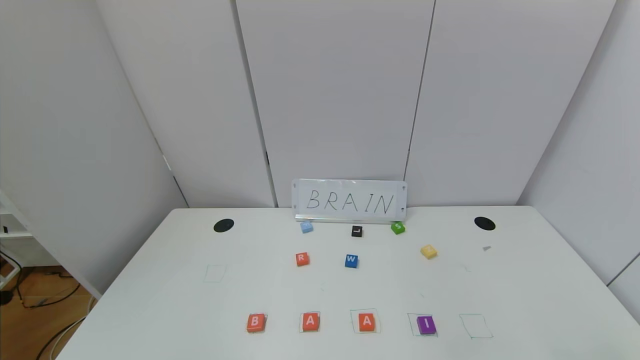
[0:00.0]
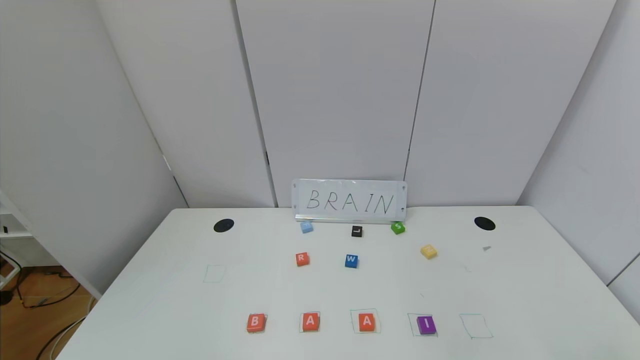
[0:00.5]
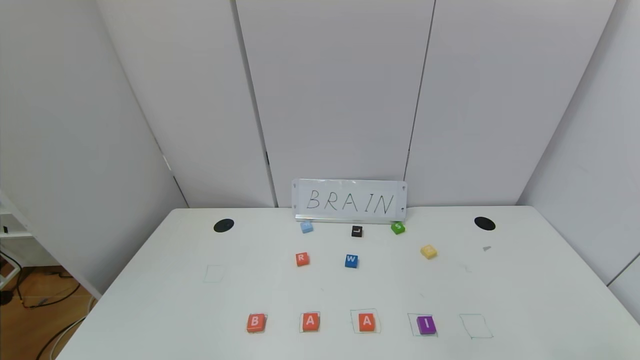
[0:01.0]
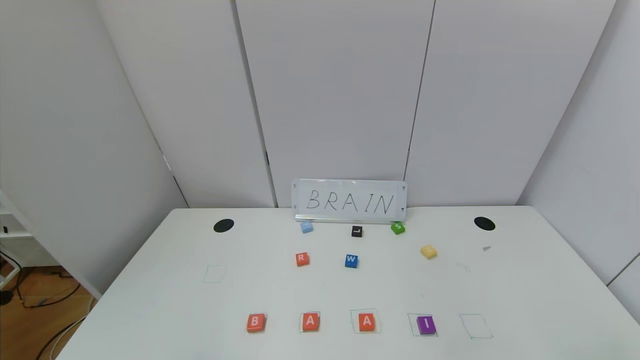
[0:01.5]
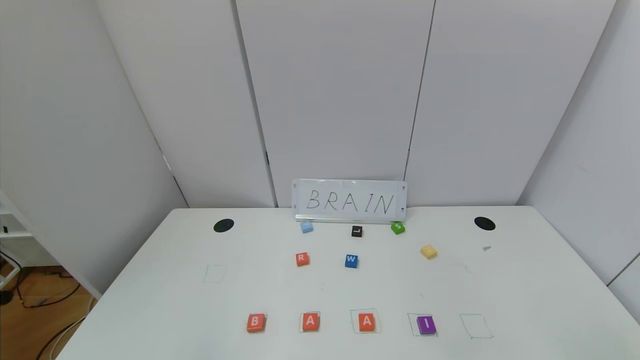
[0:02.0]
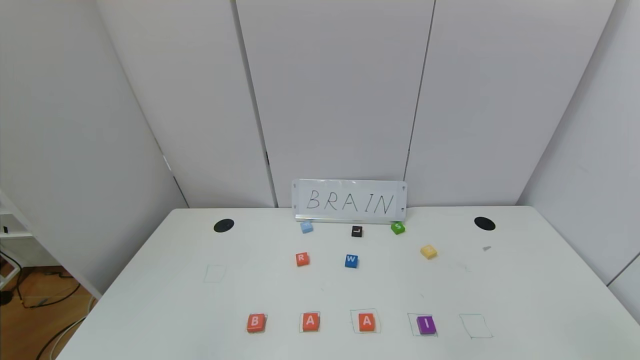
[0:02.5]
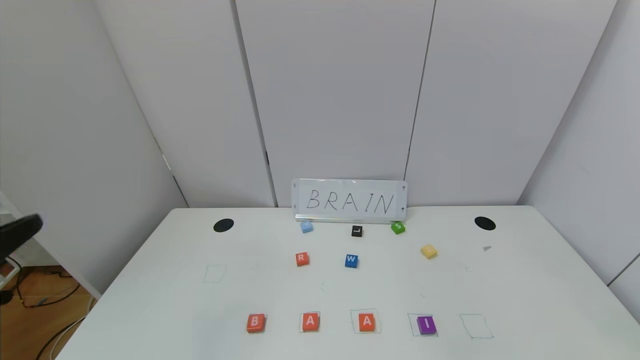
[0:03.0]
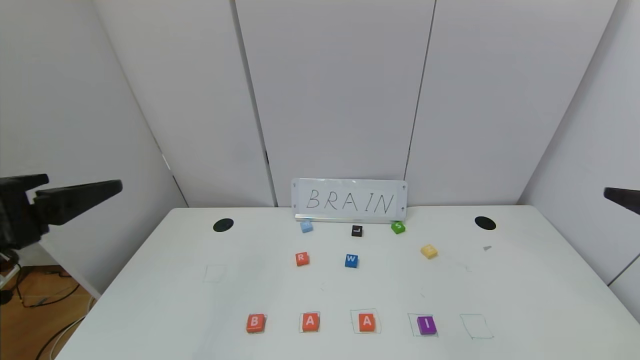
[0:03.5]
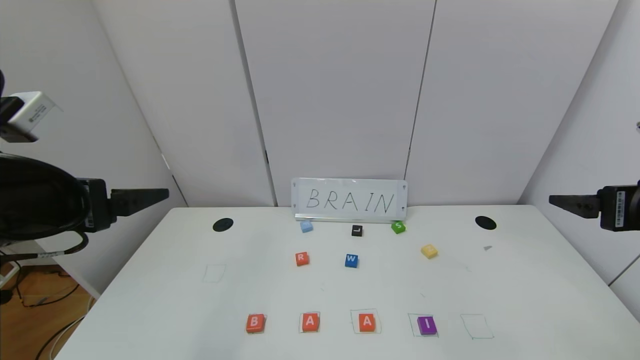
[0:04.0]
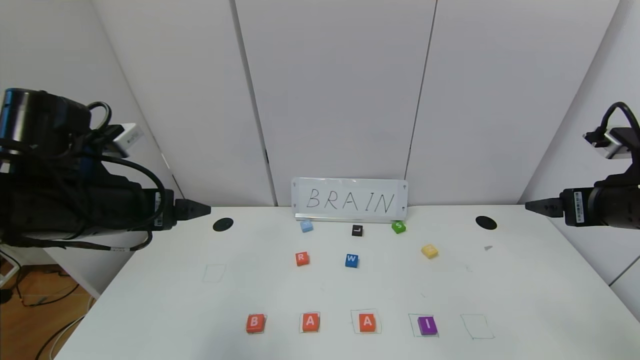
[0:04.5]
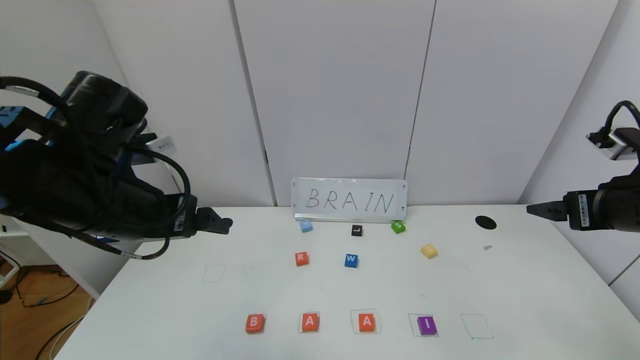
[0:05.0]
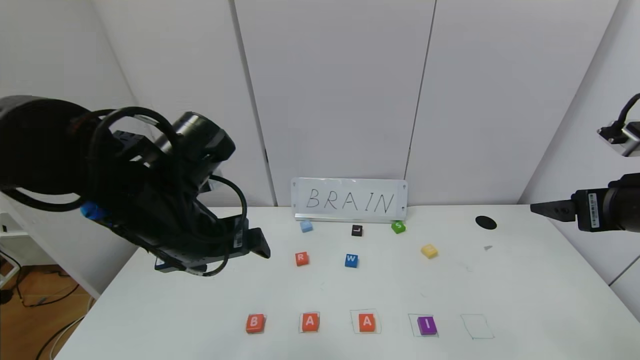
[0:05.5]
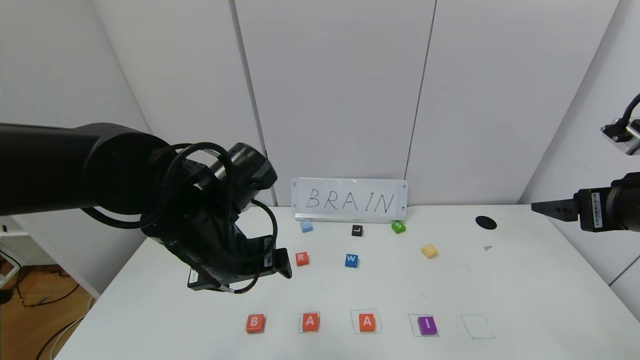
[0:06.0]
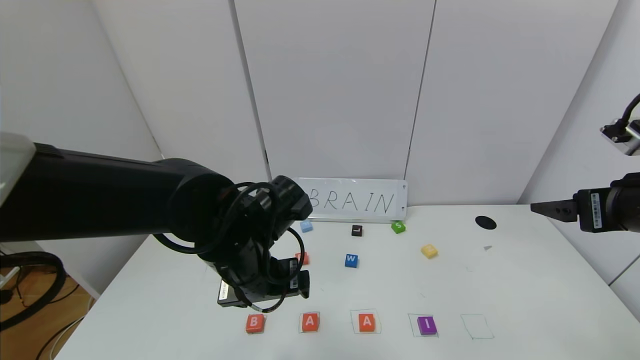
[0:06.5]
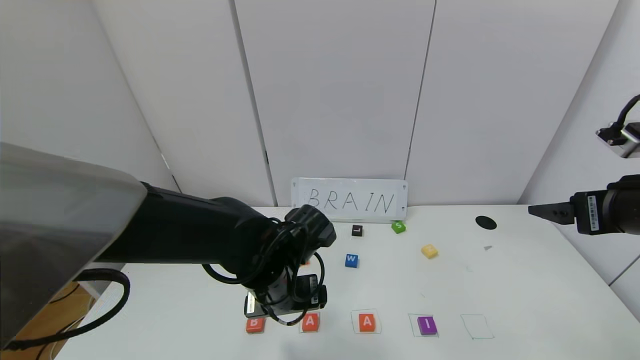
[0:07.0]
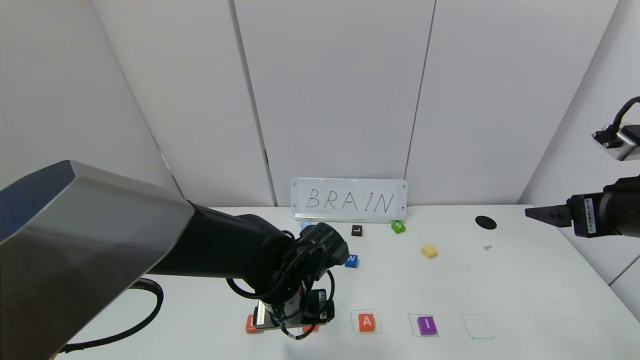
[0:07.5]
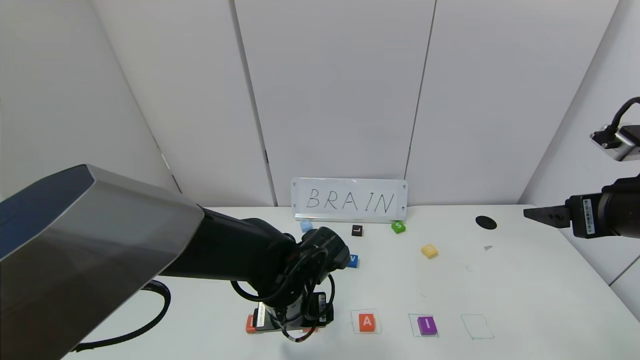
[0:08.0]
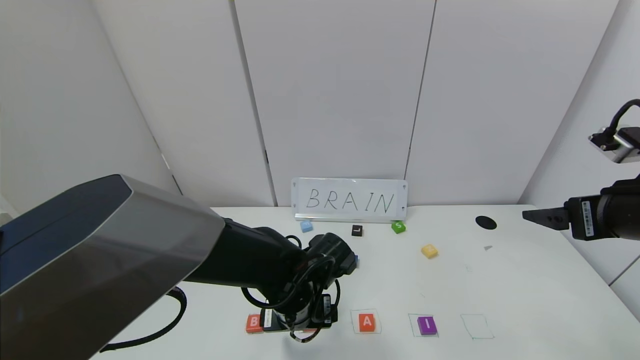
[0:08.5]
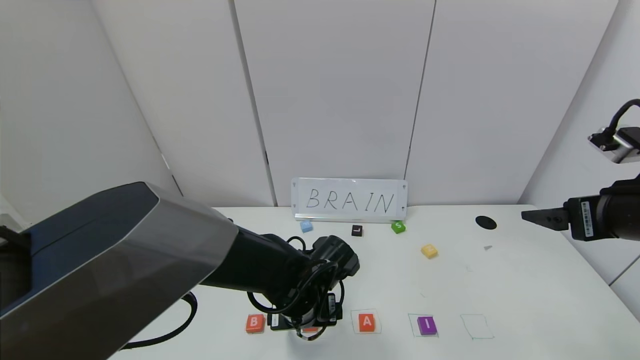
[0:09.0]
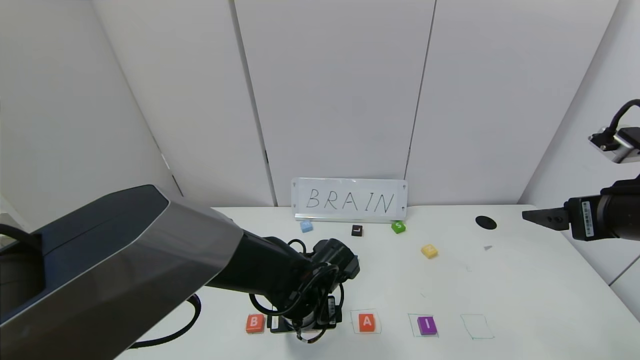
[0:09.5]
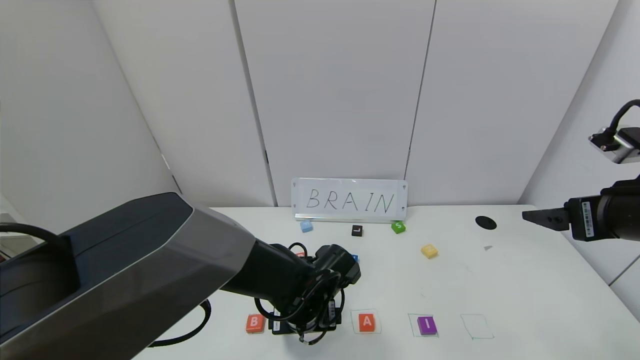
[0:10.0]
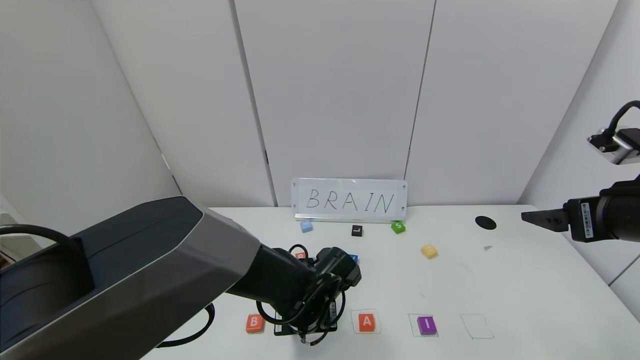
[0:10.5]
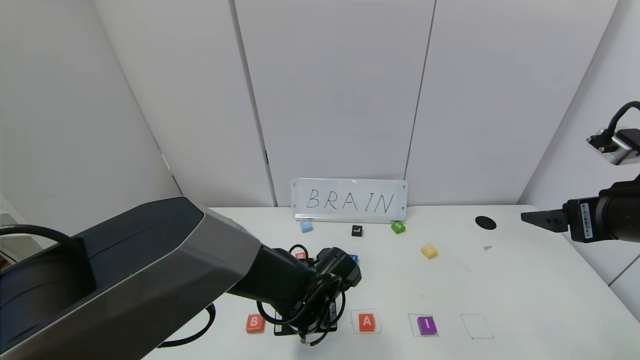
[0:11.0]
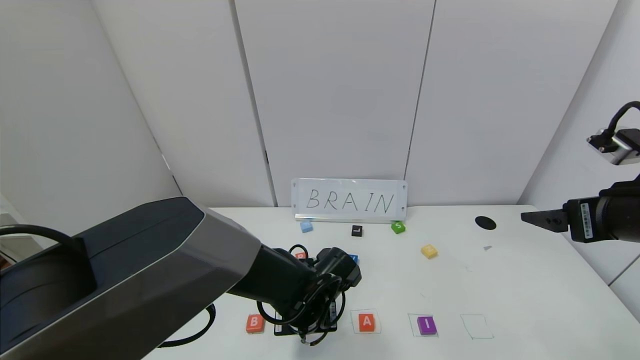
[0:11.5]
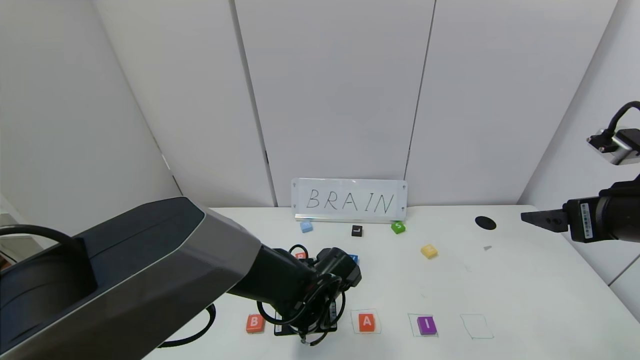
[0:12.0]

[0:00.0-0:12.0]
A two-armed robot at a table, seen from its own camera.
Task of the whole recording: use the gripper to find blocks with the letters b, a, a, and i on the table and arrange them into BAAI, then find r and N and turn the arranged baai into brian.
0:02.0 to 0:04.0: Both grippers move forward and upward, approximately 25 cm.
0:04.0 to 0:06.0: The left gripper heads to the right, downward and forward, covering about 15 cm.
0:06.0 to 0:08.0: The left gripper is displaced downward and to the right by roughly 15 cm.
0:08.0 to 0:10.0: The left gripper changes place by about 5 cm.
0:10.0 to 0:12.0: The left gripper closes up.

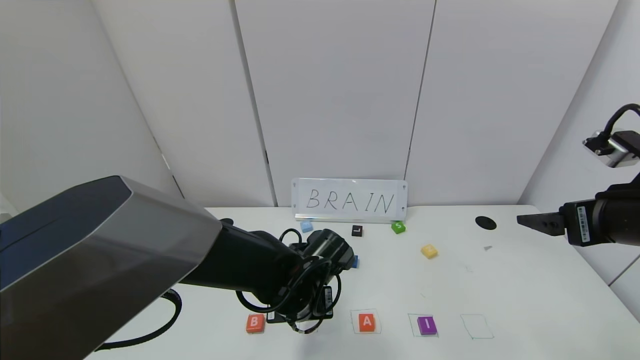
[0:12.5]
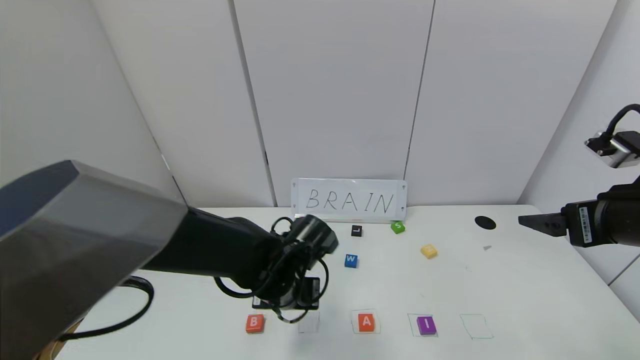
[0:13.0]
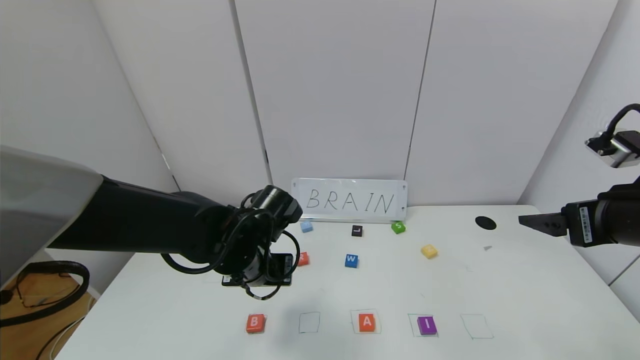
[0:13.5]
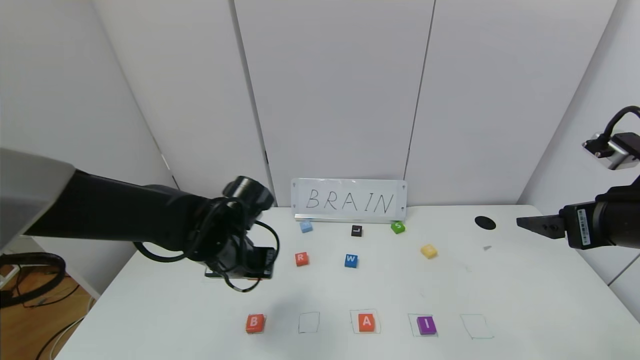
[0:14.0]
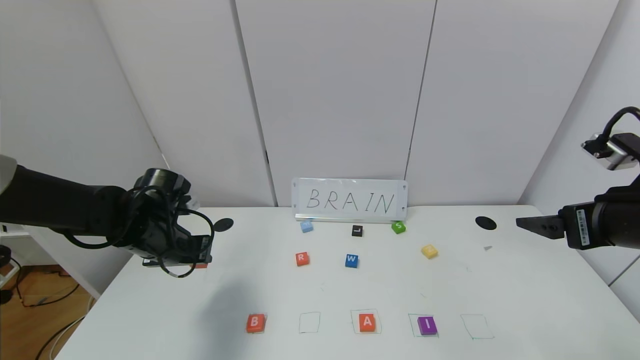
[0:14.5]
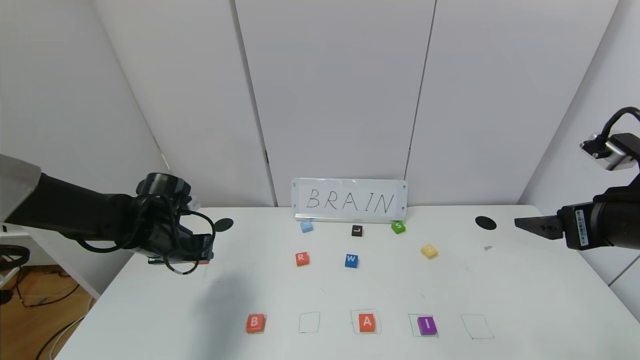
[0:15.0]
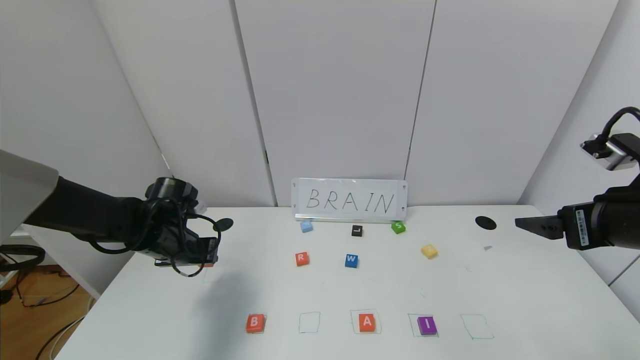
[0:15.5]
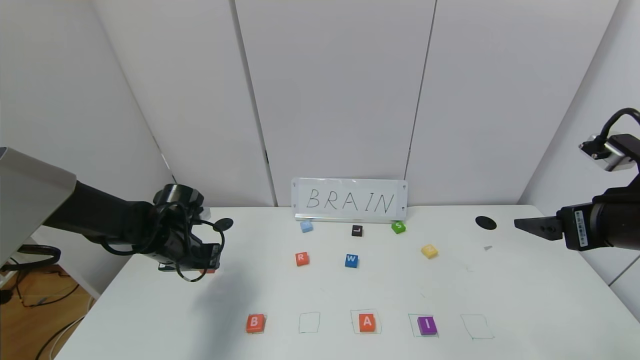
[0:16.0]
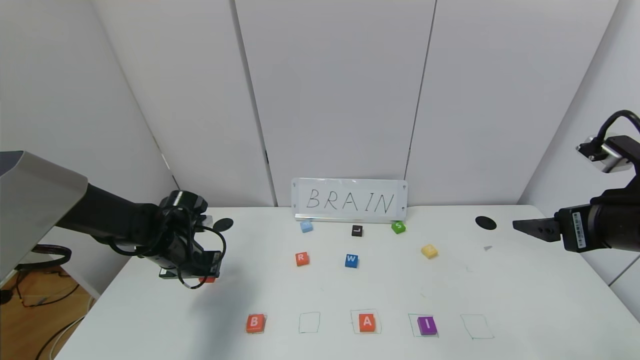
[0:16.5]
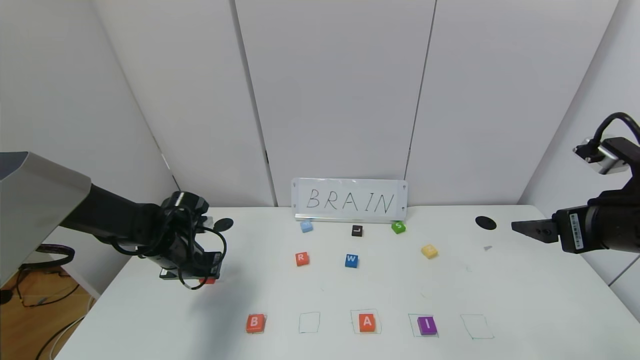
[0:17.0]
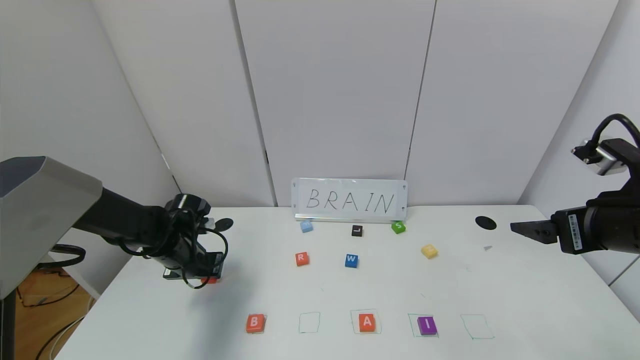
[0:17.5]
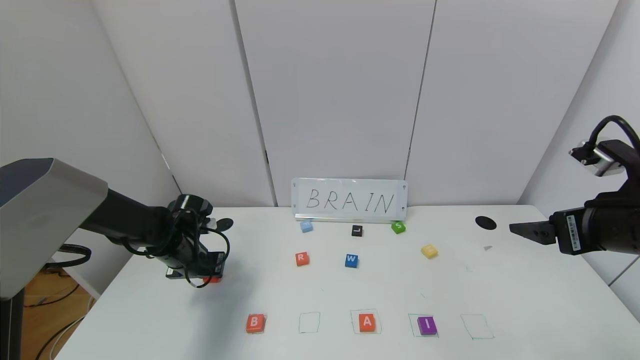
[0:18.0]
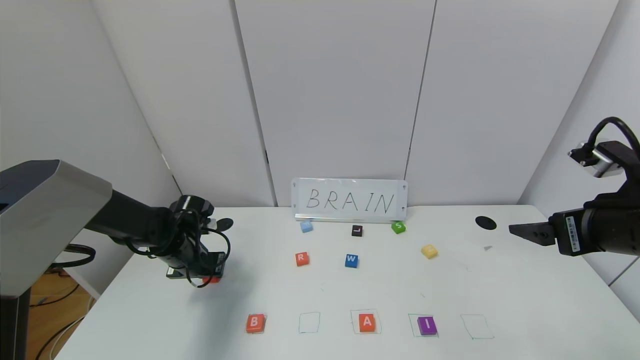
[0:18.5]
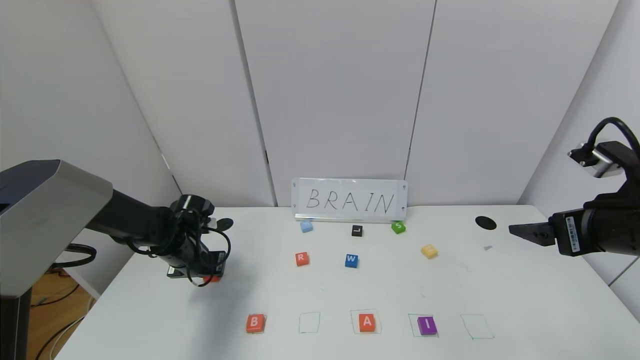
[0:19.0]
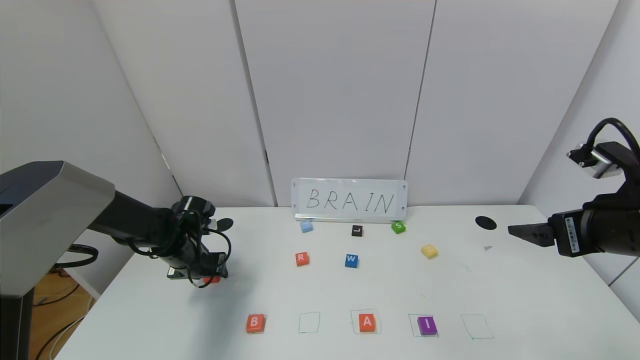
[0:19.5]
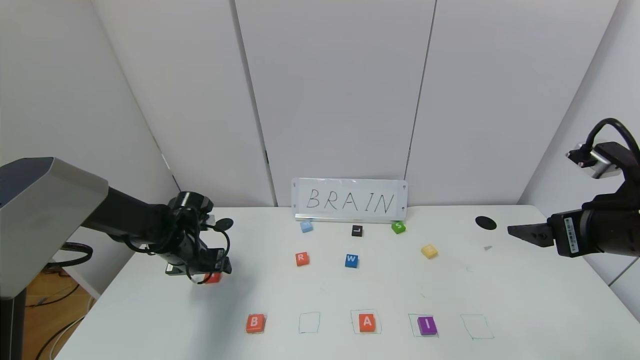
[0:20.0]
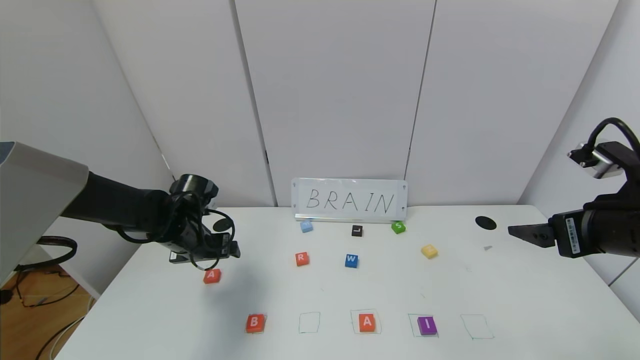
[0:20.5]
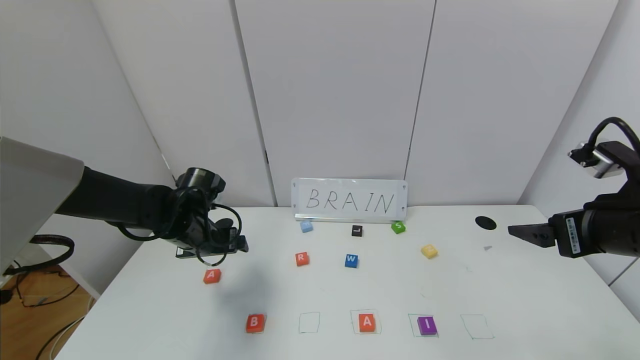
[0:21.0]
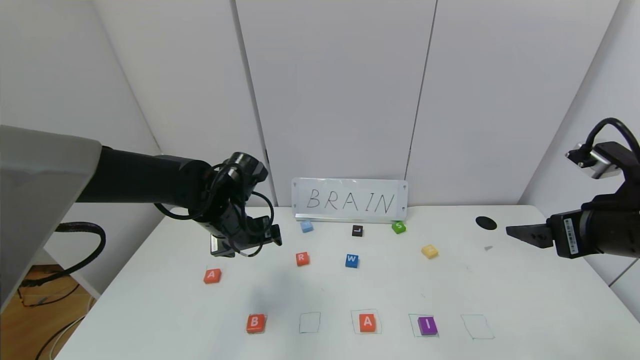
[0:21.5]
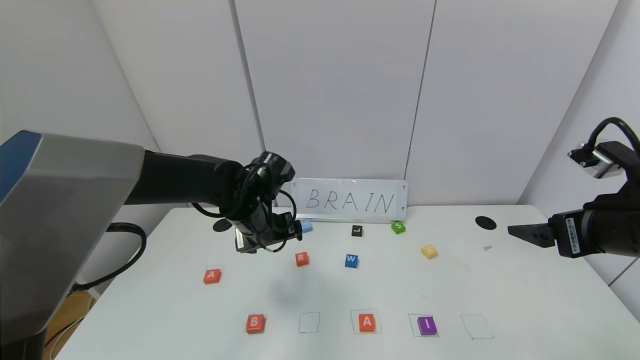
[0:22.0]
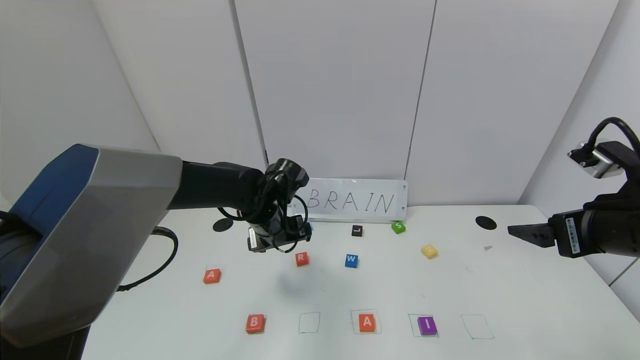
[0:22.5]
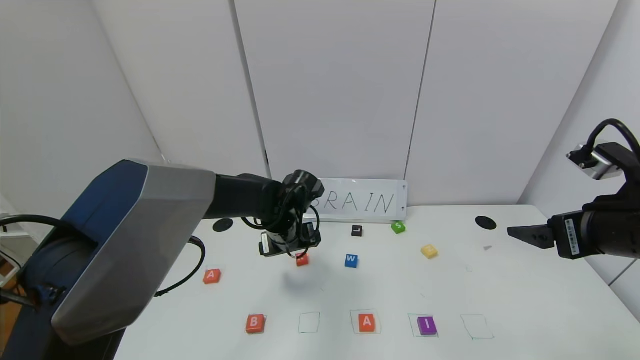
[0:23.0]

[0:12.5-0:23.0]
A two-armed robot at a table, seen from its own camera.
Task of the whole recording: use the gripper to find blocks with the letters b, a, a, and i on the table and arrange them into BAAI, then find r and N and turn the arranged baai into brian.
Step, 0:12.5 to 0:19.5: Move the block A out of the second location.
0:12.5 to 0:14.5: The left gripper is displaced to the left by approximately 20 cm.
0:14.5 to 0:16.5: The left gripper moves downward, roughly 5 cm.
0:16.5 to 0:19.0: The grippers make only small movements.
0:19.0 to 0:21.0: The left gripper goes roughly 5 cm upward, and opens.
0:21.0 to 0:23.0: The left gripper heads to the right, covering approximately 15 cm.
